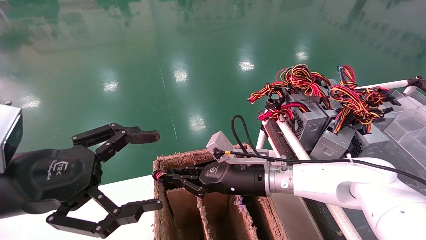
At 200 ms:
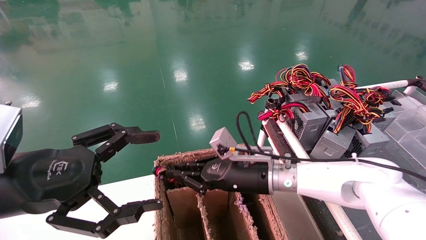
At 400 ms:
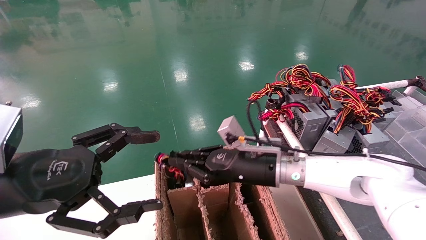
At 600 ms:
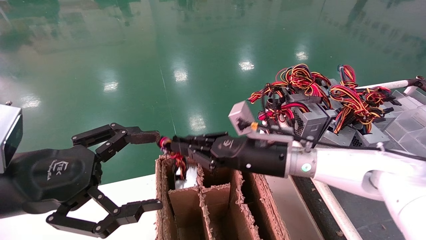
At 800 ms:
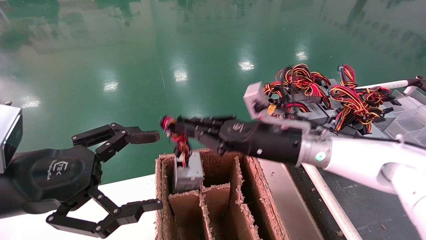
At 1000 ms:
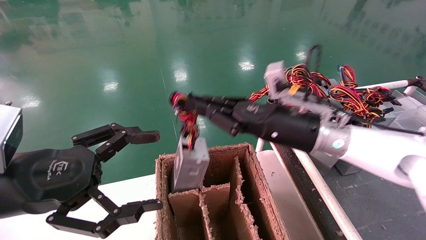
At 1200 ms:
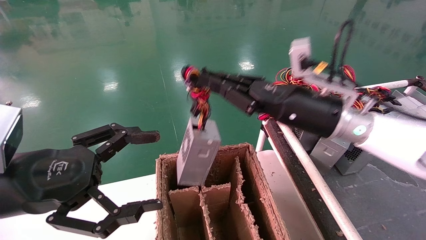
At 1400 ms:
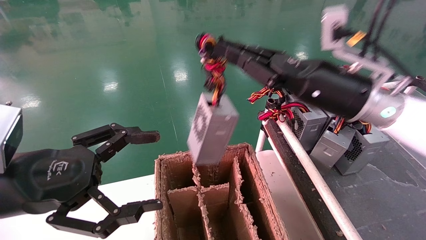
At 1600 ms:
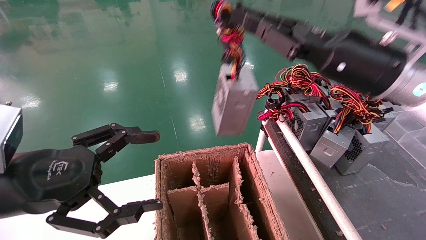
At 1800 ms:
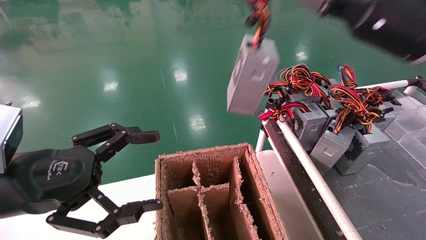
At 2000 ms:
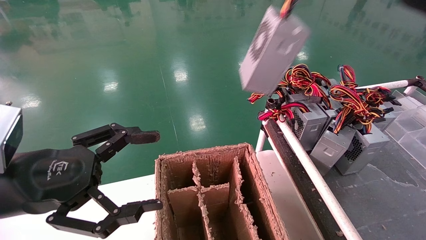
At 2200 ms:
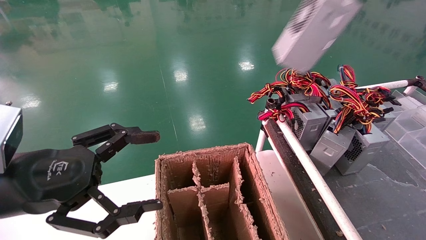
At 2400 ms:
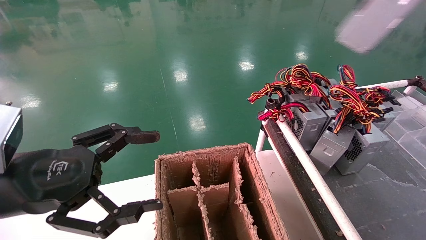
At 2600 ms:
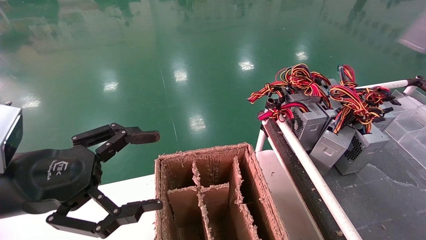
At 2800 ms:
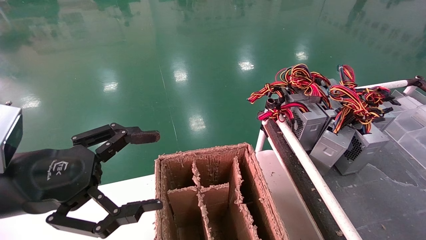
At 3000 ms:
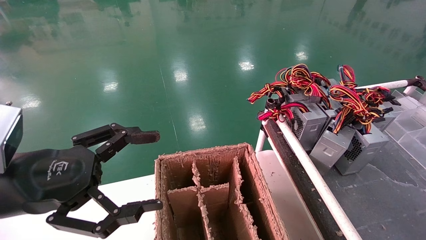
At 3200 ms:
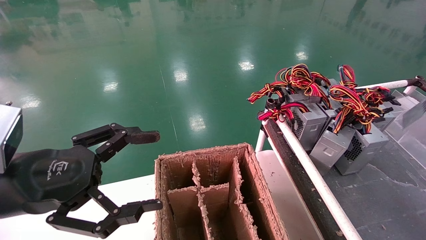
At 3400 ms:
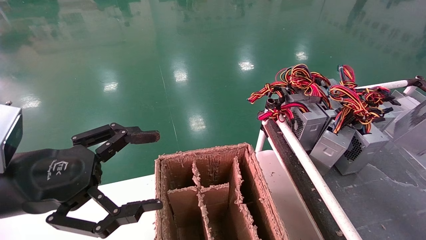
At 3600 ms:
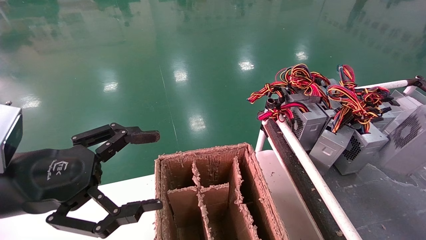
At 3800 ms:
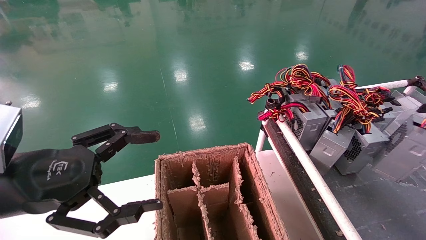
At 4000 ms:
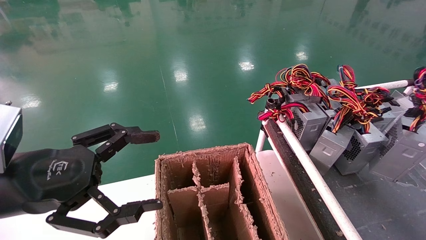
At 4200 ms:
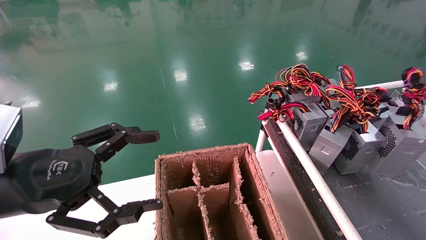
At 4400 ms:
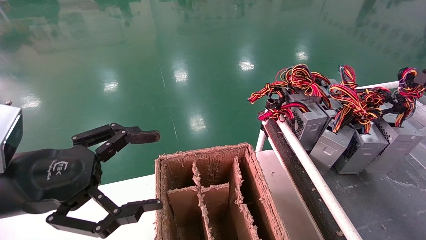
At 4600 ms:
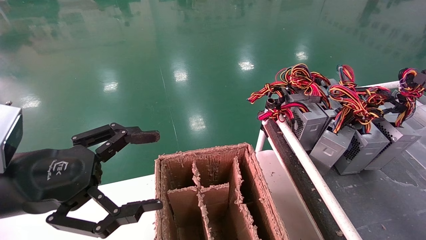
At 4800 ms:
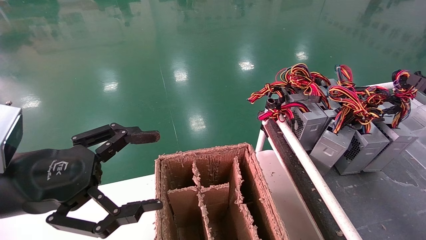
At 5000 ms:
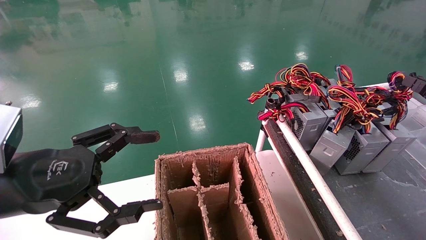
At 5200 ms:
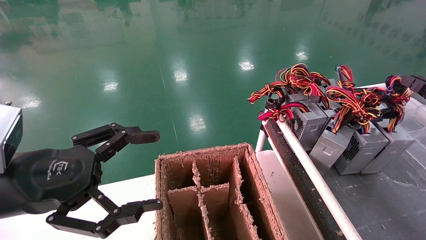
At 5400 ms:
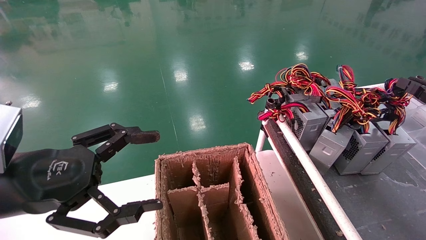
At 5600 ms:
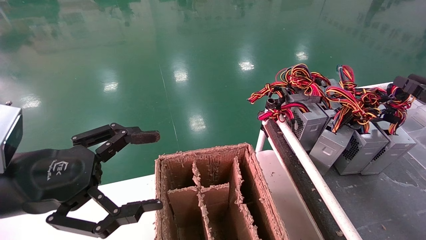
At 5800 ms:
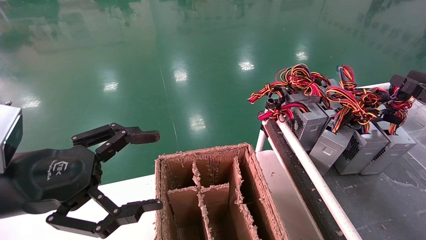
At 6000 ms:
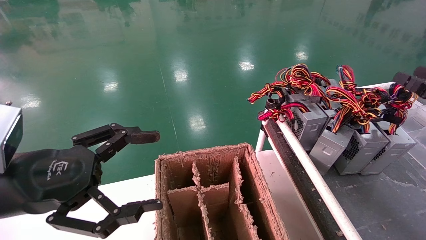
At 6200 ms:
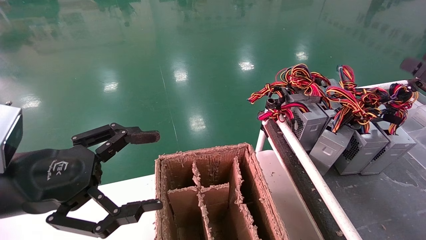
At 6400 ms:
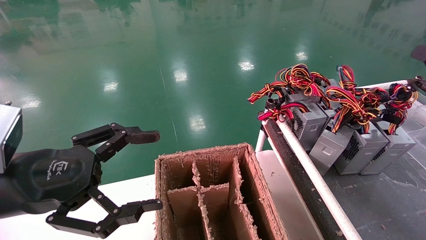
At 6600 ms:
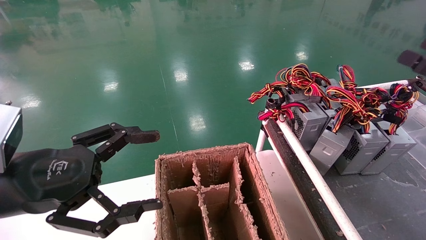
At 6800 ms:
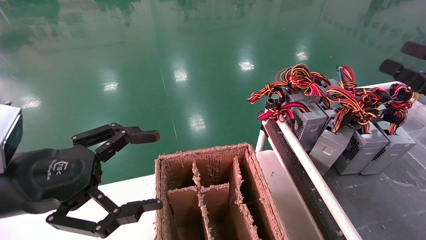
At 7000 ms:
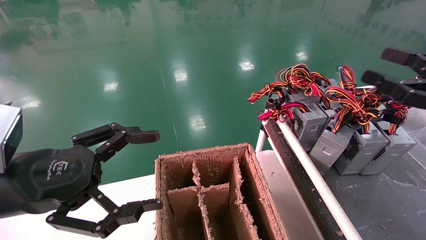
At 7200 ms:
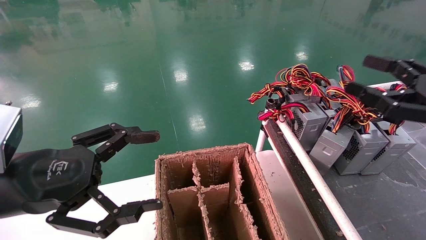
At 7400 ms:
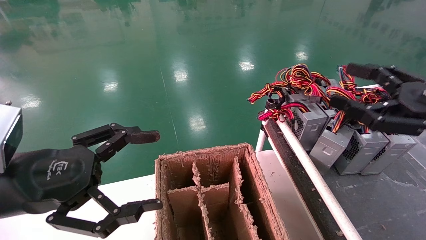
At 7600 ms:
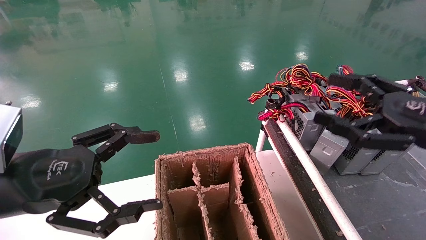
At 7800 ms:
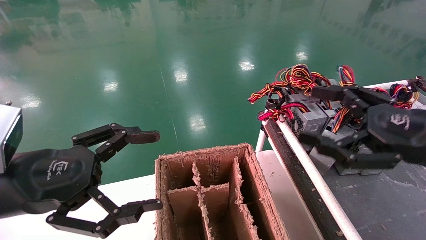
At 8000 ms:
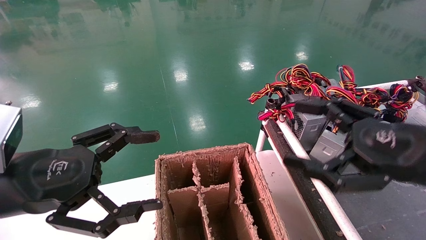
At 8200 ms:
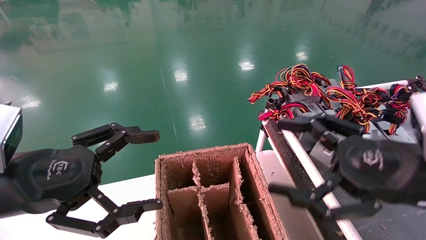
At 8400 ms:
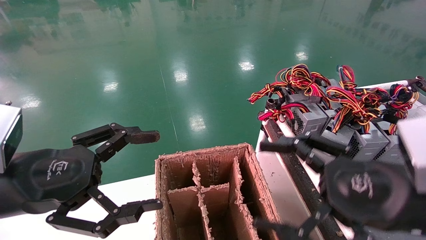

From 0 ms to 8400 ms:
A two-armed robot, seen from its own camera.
Step, from 0 ms to 5200 ms: Place the power supply on the operating table.
From 0 ms to 1400 ms: The right gripper moves upward and to the right, about 20 cm.
From 1400 ms to 2800 ms: The right gripper heads to the right, covering about 35 cm.
From 2800 ms to 4200 ms: The right gripper shifts roughly 15 cm downward.
From 4200 ms to 5600 ms: The grippers move only a little.
From 5600 ms to 7000 ms: The right gripper moves to the left, about 10 cm, and opens its fingers.
From 7000 ms to 8400 ms: The right gripper goes approximately 15 cm to the left.
